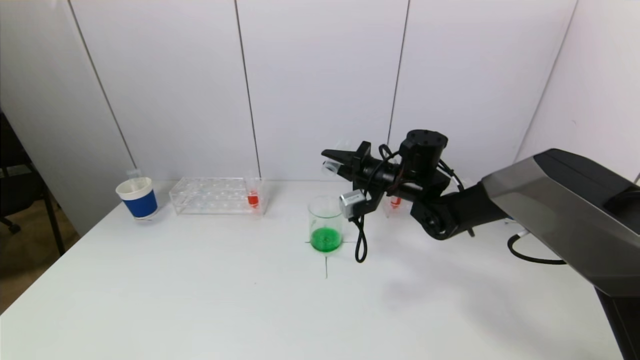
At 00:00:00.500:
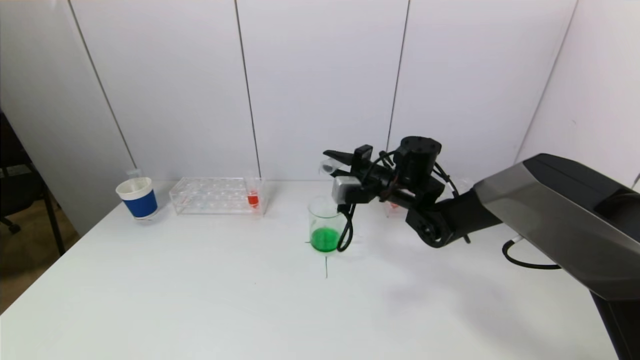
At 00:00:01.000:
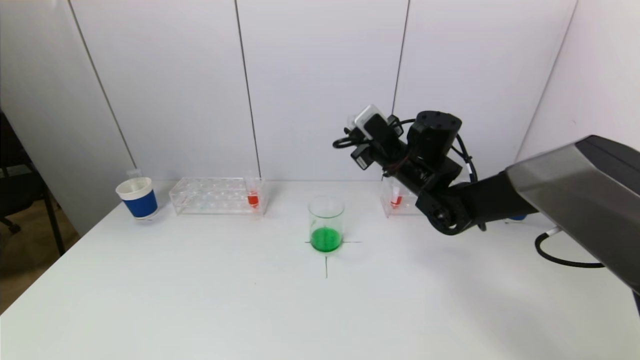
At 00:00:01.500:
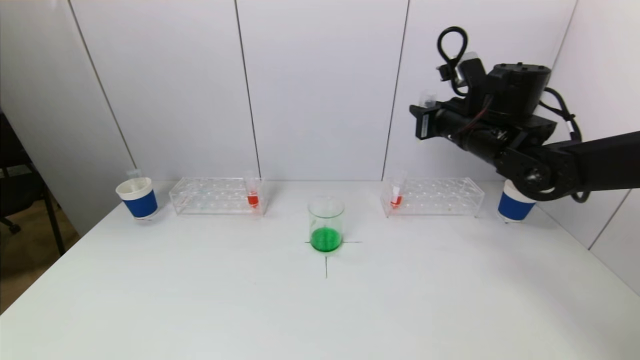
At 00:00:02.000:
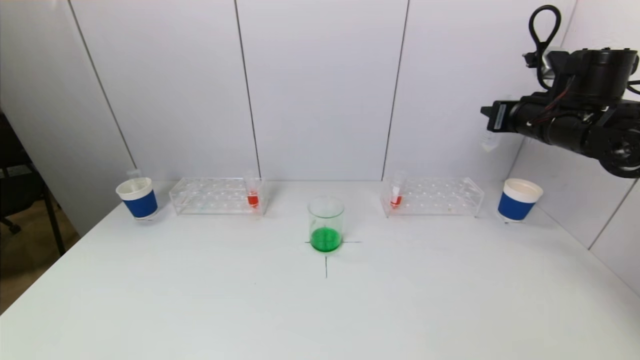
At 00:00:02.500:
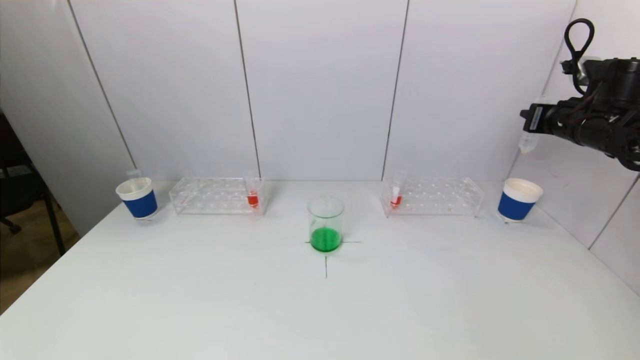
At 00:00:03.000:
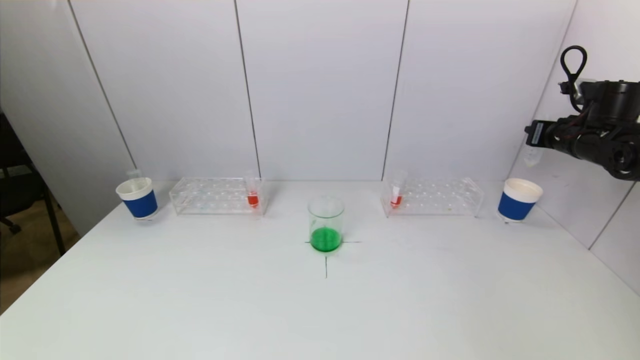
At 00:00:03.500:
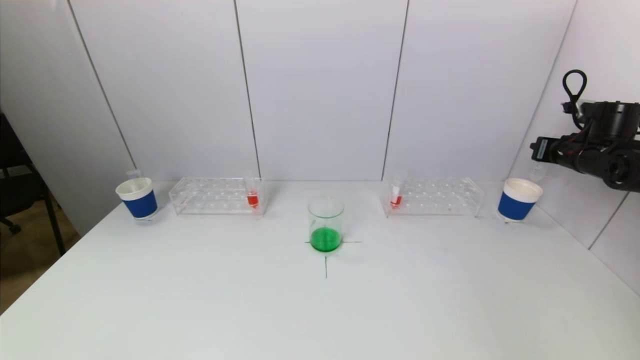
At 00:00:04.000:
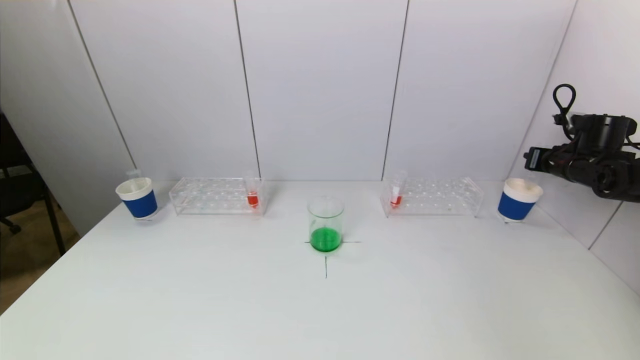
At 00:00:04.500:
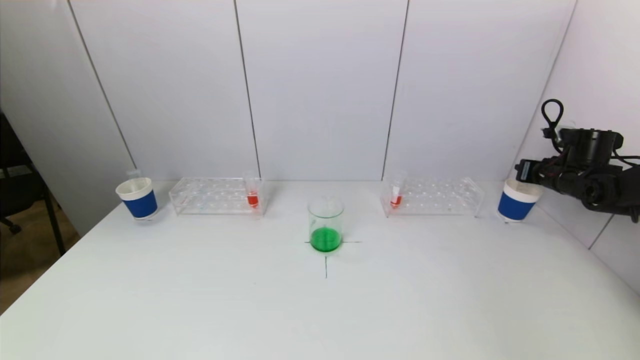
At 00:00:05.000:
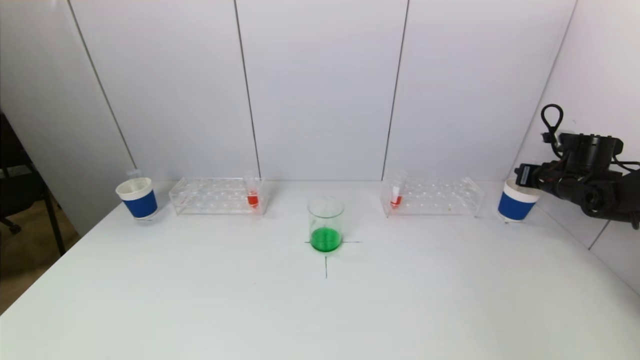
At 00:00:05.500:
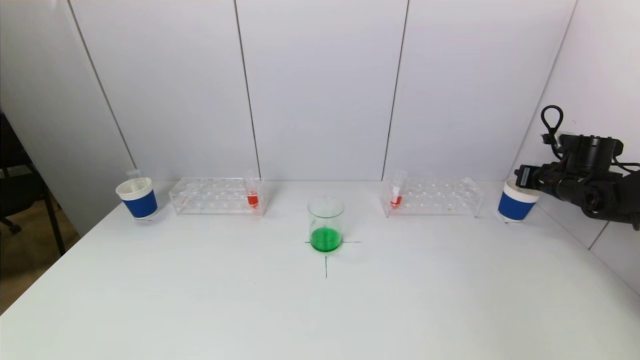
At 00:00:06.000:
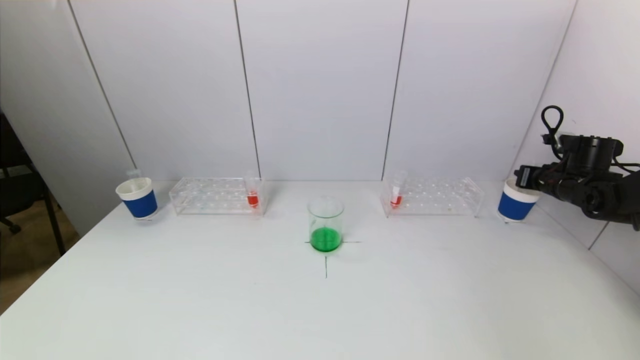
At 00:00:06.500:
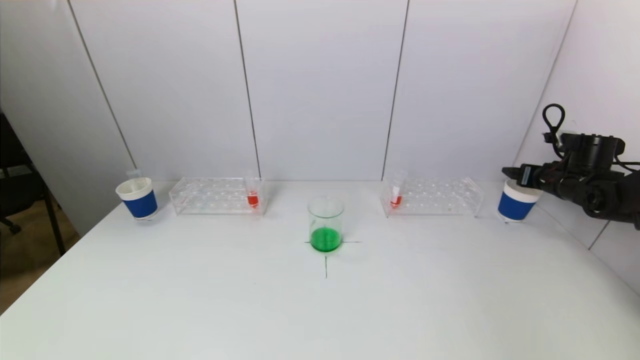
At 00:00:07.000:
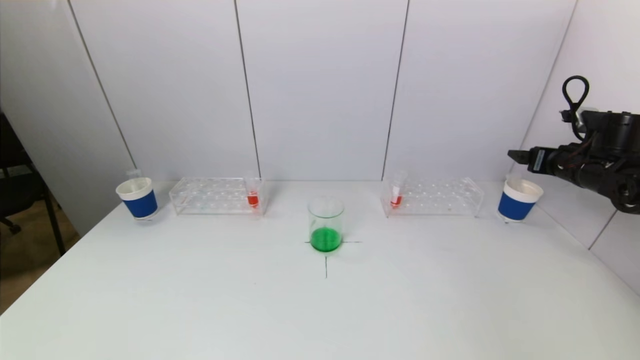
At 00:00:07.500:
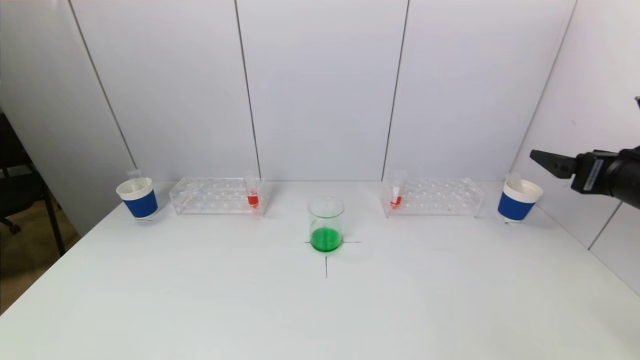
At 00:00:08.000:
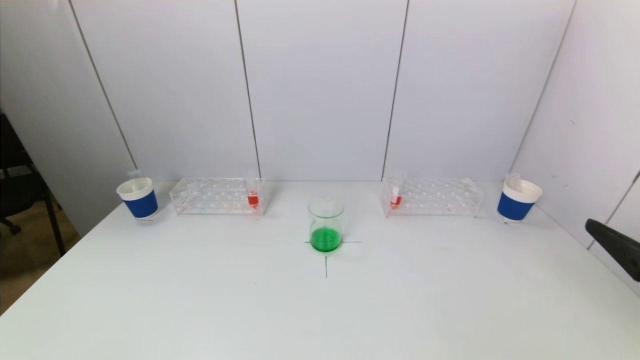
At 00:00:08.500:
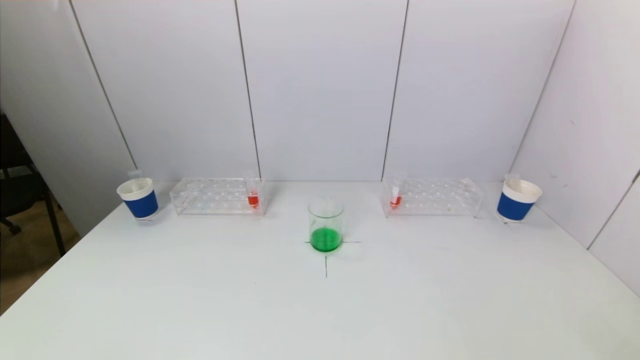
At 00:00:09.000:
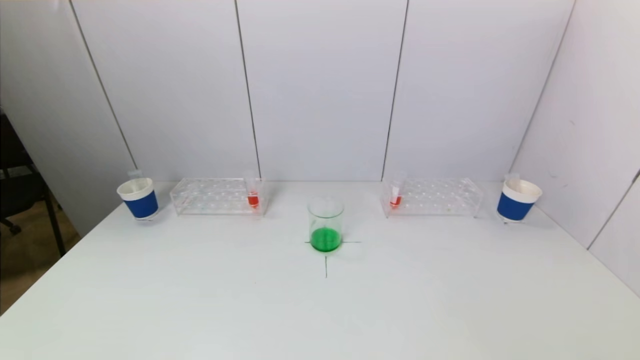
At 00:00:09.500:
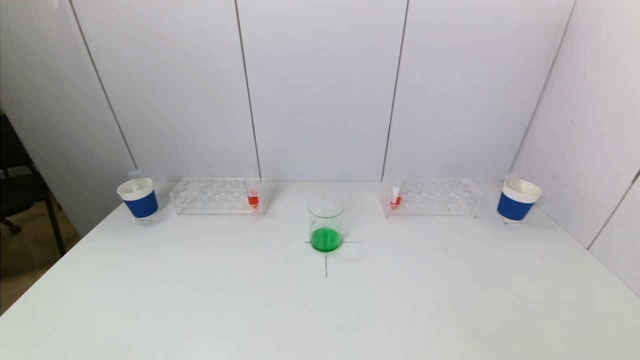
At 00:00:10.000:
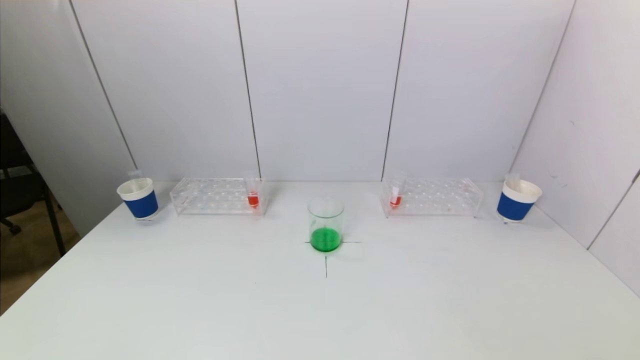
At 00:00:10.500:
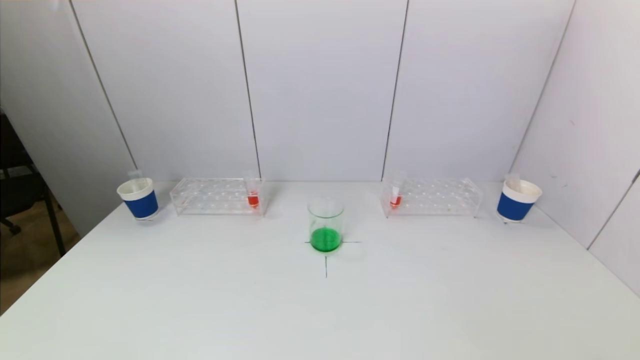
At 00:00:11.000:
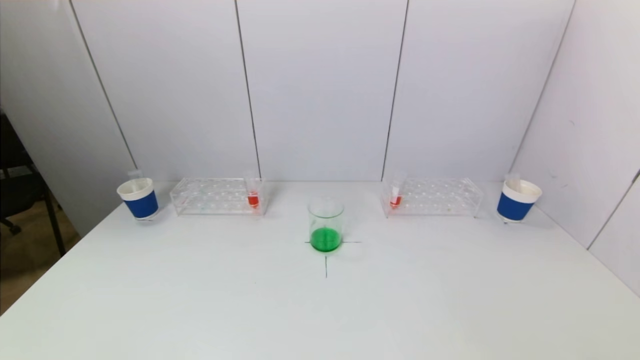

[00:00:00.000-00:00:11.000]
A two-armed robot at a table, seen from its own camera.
Task of the whole recording: pick up a test tube with pigment on left test tube rack and a test tube with pigment on right test tube rack by grippers and pour them into the beaker.
Step, 00:00:00.000 to 00:00:06.000: Place the test tube into the paper cup with the right gripper.
00:00:00.000 to 00:00:02.000: The right gripper travels to the right and upward by some 25 cm.
00:00:02.000 to 00:00:03.500: The right gripper goes about 20 cm to the right, downward and forward.
00:00:03.500 to 00:00:05.500: The right gripper is displaced downward by about 5 cm.
00:00:05.500 to 00:00:07.500: The right gripper shifts approximately 25 cm backward, upward and to the left, and opens.
00:00:07.500 to 00:00:09.000: The right gripper heads backward and downward, covering some 30 cm.
00:00:09.000 to 00:00:11.000: Both grippers stay about where they are.

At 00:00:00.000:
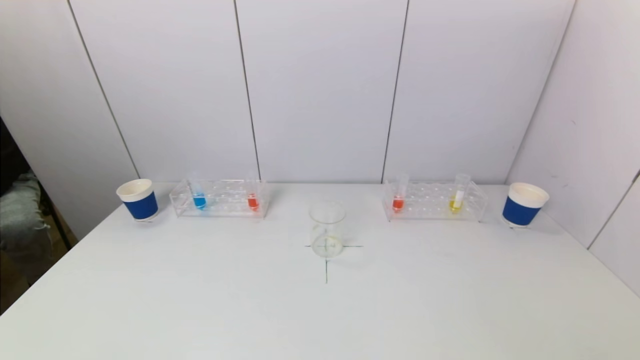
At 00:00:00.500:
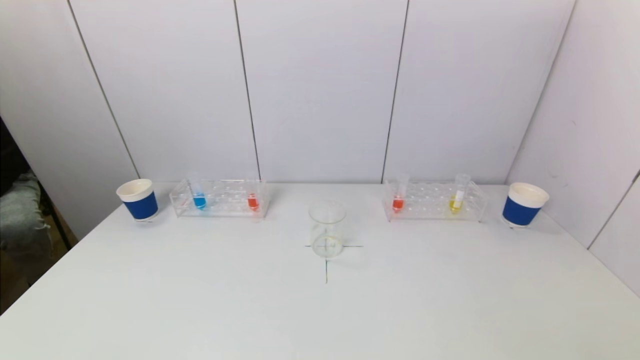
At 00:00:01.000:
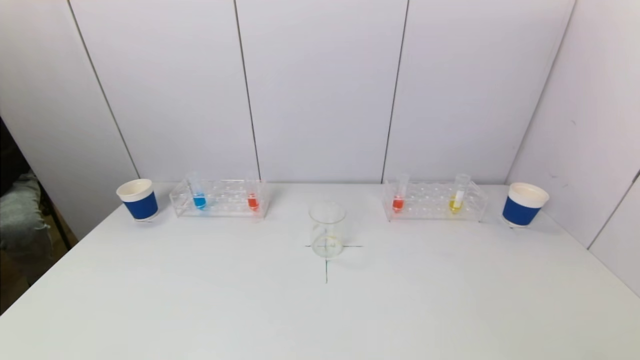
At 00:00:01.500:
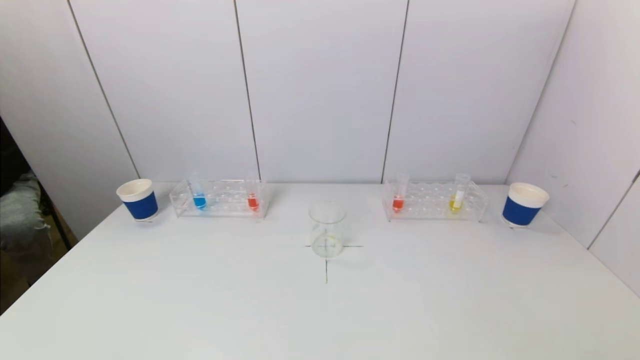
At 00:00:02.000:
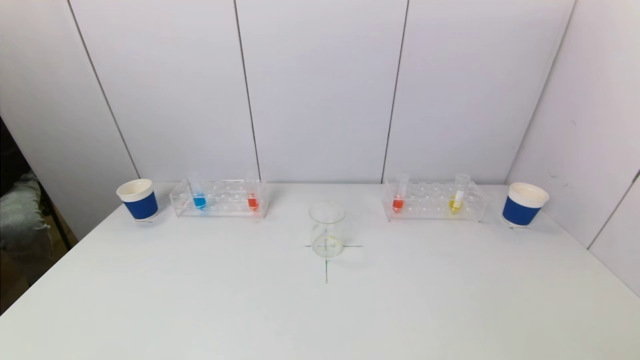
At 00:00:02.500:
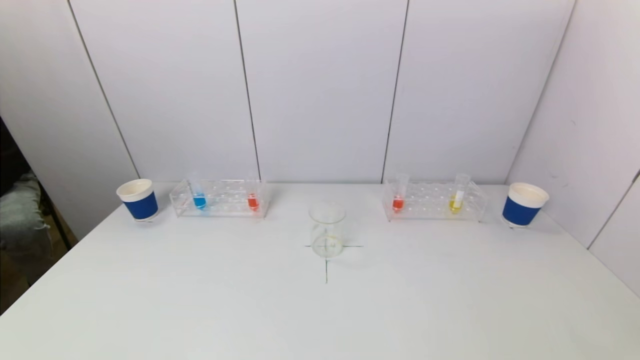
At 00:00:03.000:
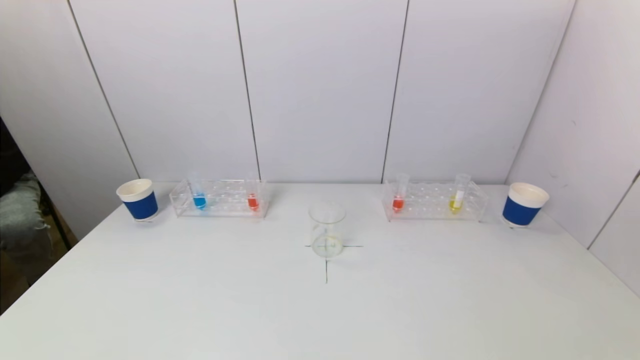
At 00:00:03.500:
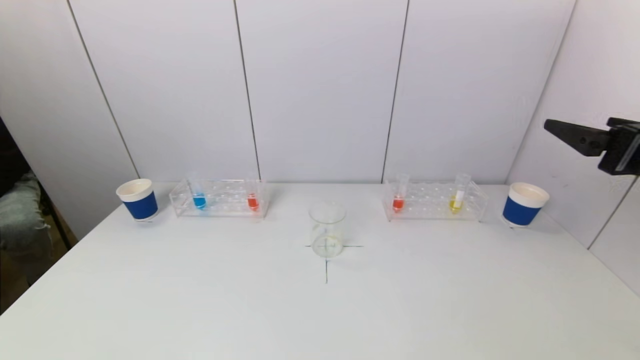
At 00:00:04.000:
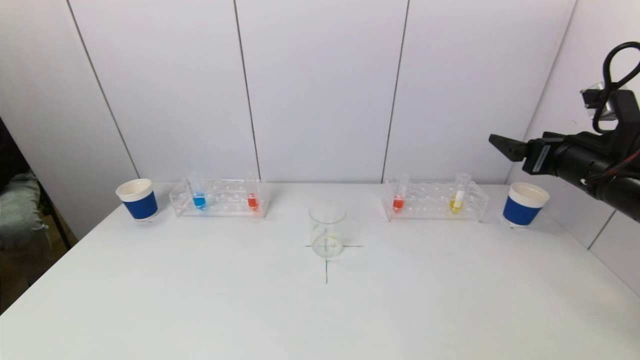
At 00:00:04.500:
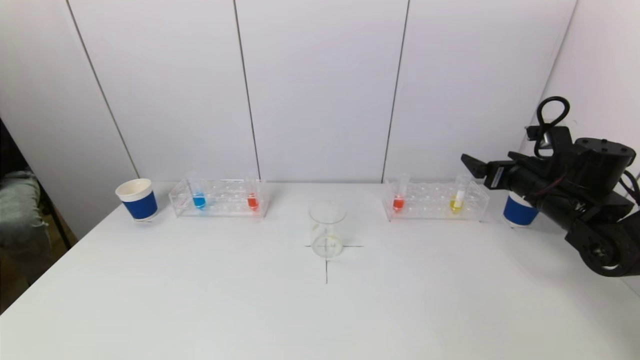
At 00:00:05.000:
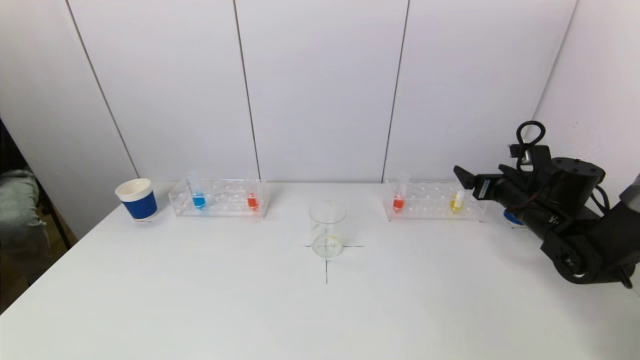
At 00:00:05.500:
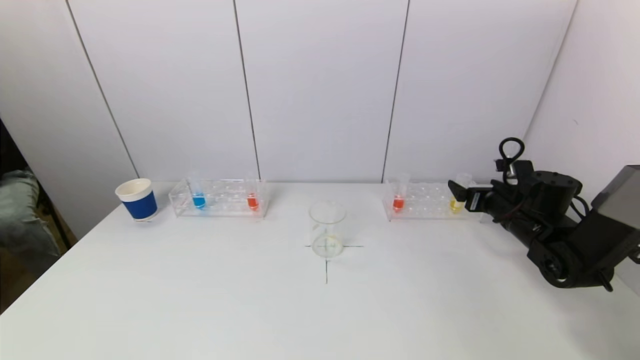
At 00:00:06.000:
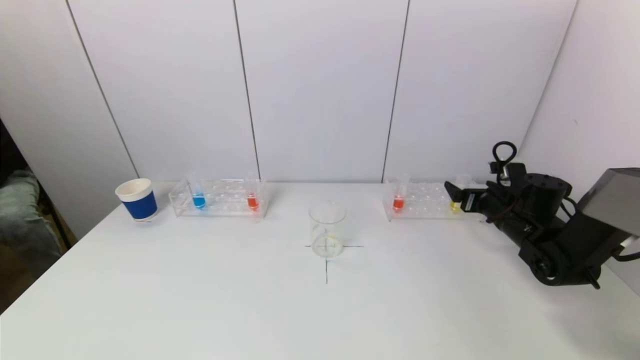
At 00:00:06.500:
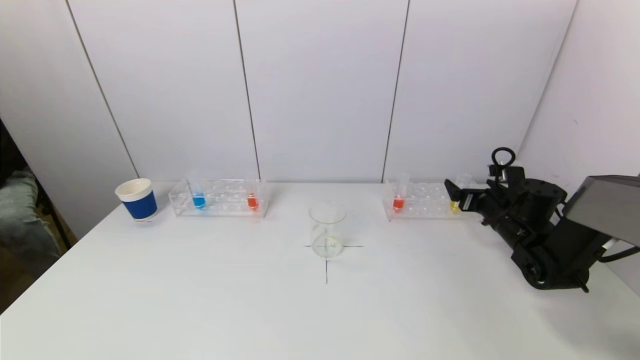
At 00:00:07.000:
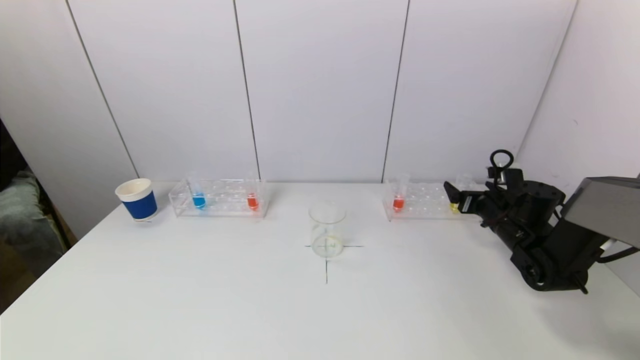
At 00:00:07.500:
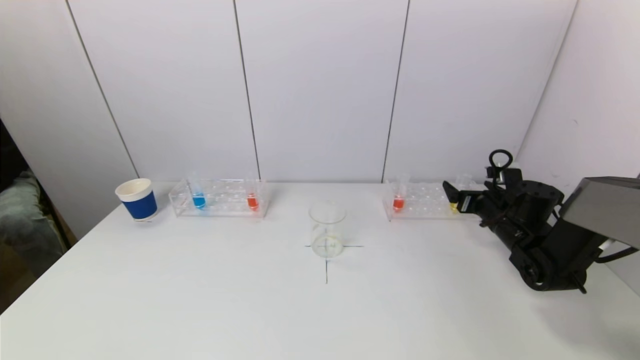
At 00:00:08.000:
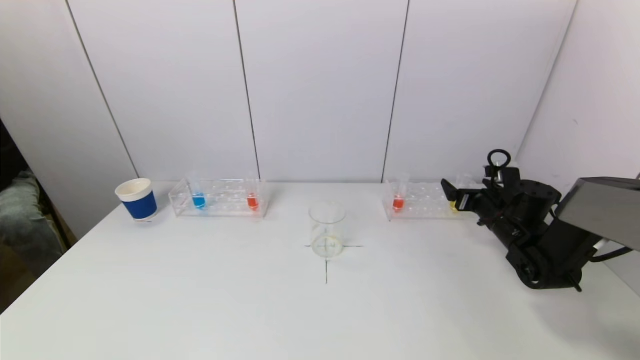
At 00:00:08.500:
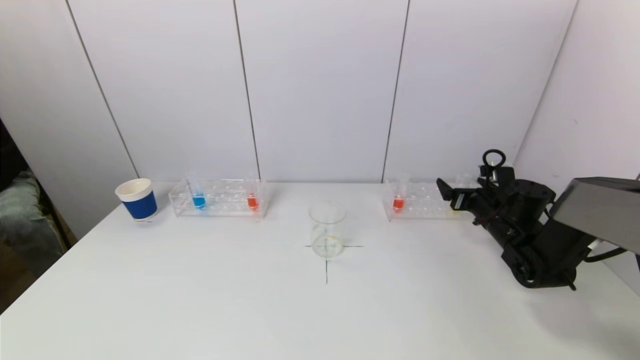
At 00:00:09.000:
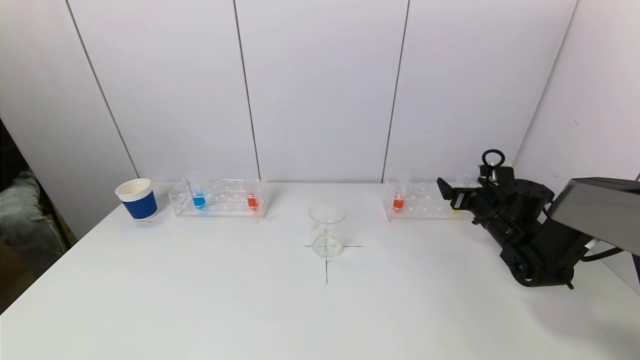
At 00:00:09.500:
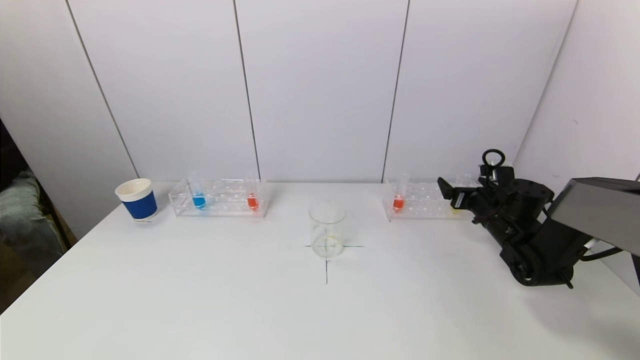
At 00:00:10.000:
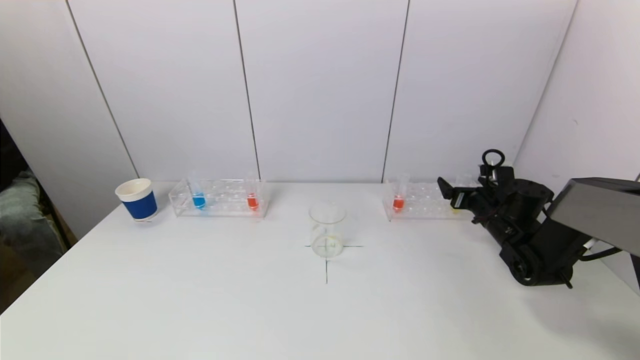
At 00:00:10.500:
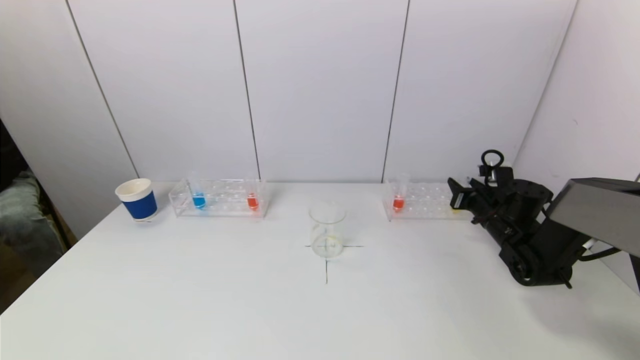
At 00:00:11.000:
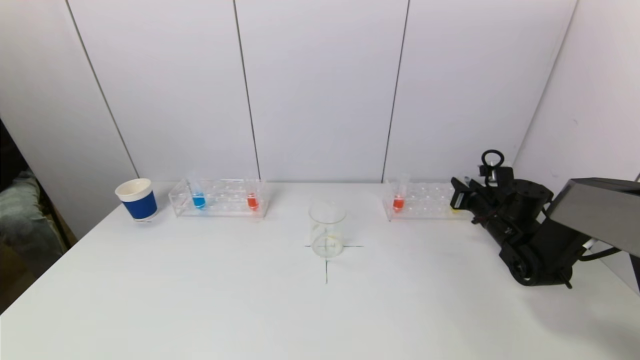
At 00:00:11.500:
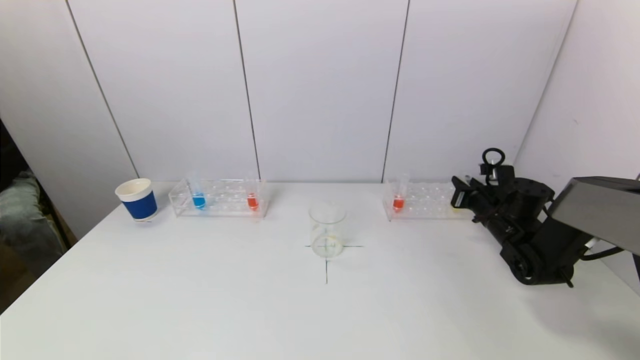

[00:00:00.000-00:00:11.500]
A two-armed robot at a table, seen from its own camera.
Task of the whole recording: pick up a test tube with pigment on left test tube rack and a test tube with pigment on right test tube rack by grippers and pour them into the beaker.
Step, 00:00:00.000 to 00:00:11.000: Grasp the yellow reagent with the right gripper.
00:00:02.000 to 00:00:04.000: The right gripper is displaced forward by roughly 35 cm.
00:00:04.000 to 00:00:06.000: The right gripper is displaced downward and forward by roughly 20 cm.
00:00:06.000 to 00:00:09.500: There are only small adjustments of the grippers.
00:00:09.500 to 00:00:11.500: The right gripper closes.